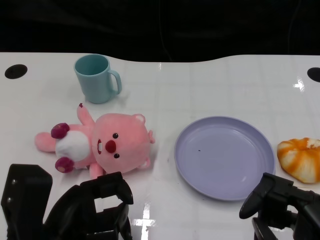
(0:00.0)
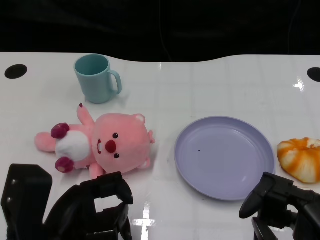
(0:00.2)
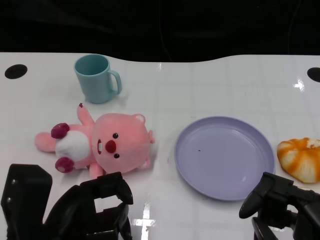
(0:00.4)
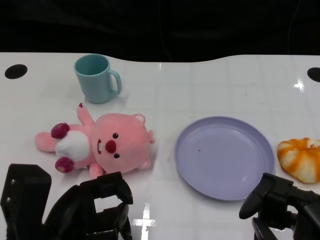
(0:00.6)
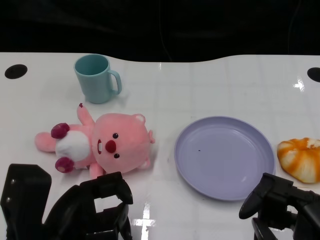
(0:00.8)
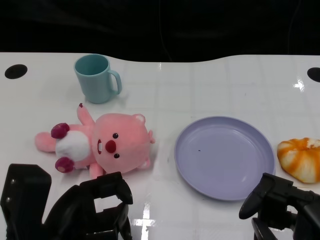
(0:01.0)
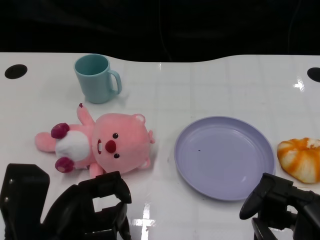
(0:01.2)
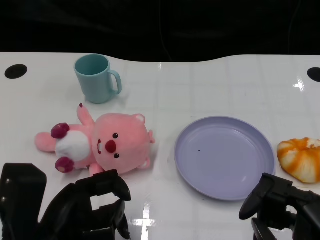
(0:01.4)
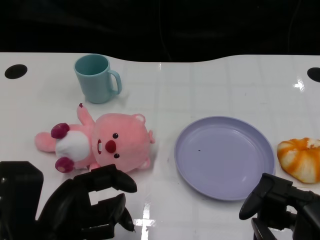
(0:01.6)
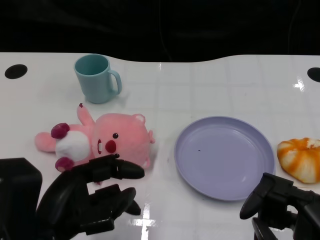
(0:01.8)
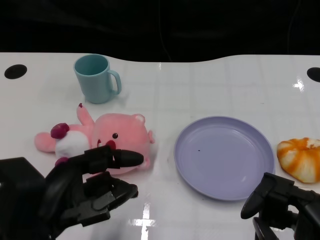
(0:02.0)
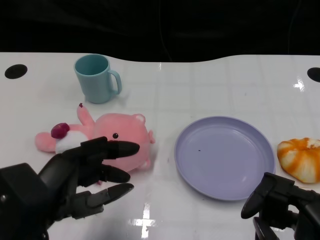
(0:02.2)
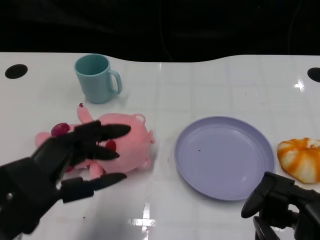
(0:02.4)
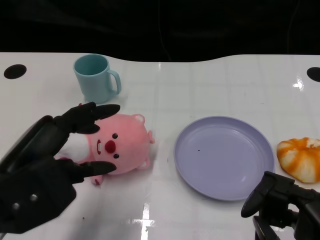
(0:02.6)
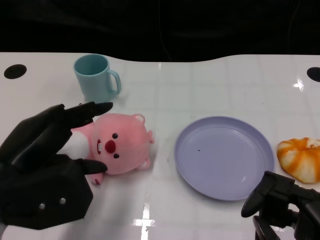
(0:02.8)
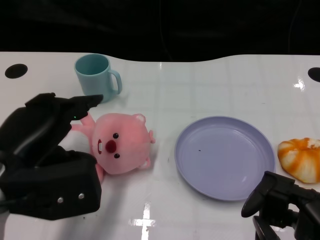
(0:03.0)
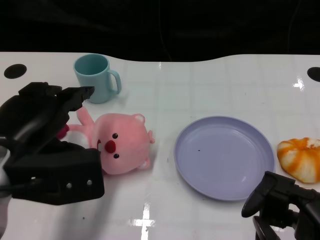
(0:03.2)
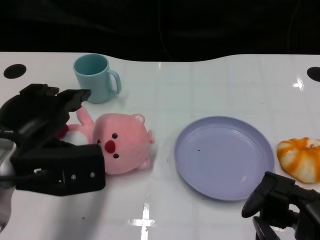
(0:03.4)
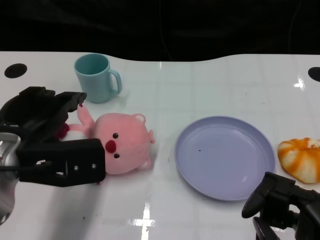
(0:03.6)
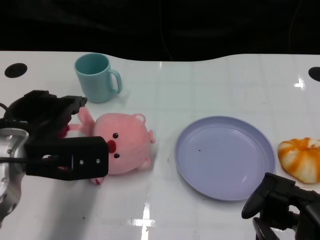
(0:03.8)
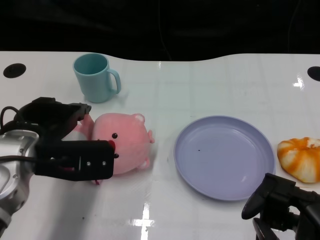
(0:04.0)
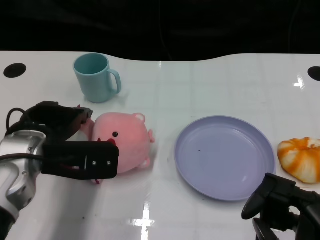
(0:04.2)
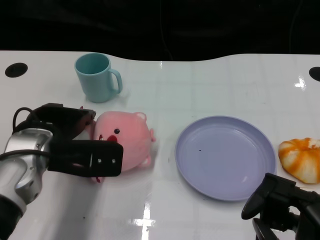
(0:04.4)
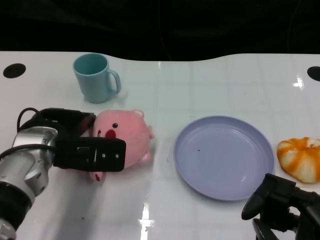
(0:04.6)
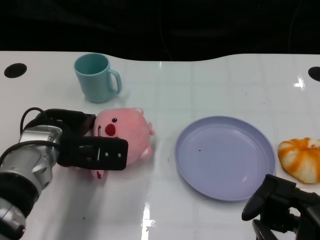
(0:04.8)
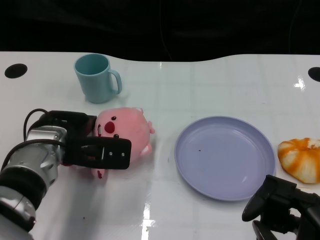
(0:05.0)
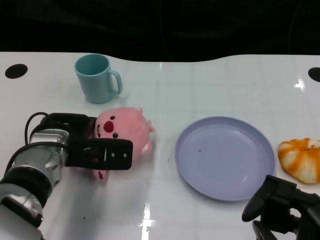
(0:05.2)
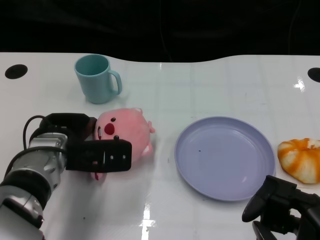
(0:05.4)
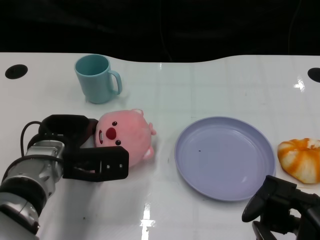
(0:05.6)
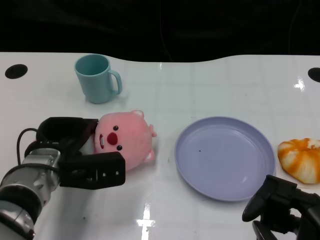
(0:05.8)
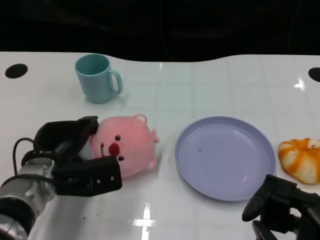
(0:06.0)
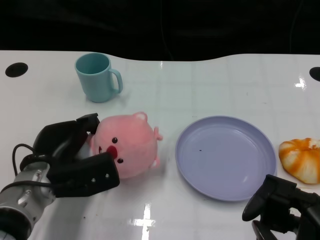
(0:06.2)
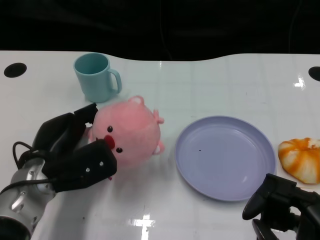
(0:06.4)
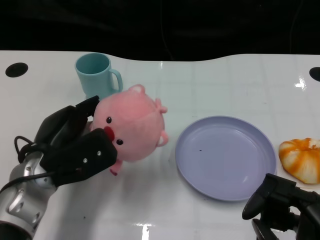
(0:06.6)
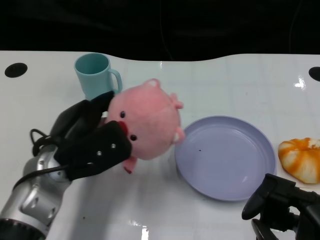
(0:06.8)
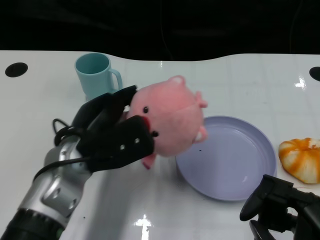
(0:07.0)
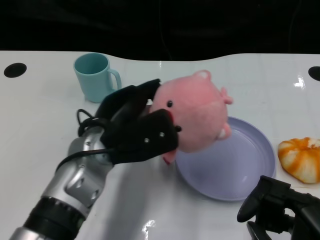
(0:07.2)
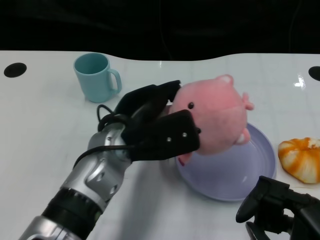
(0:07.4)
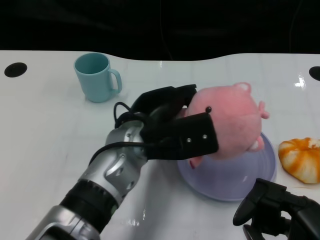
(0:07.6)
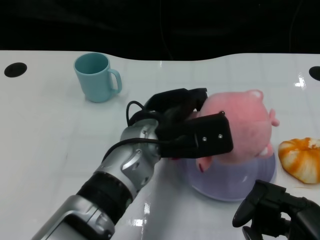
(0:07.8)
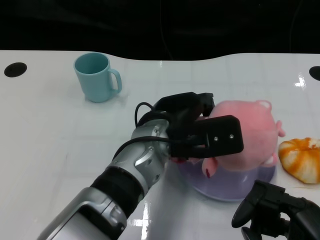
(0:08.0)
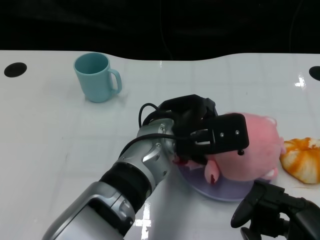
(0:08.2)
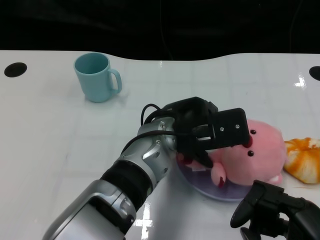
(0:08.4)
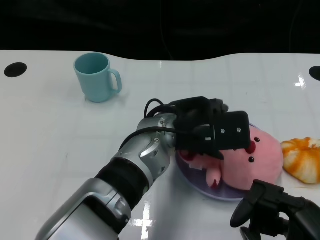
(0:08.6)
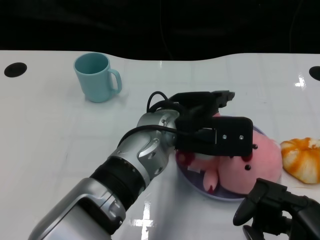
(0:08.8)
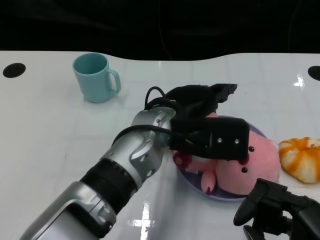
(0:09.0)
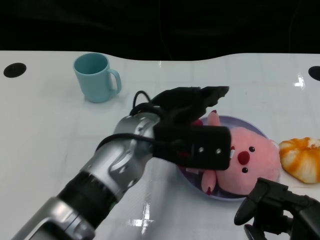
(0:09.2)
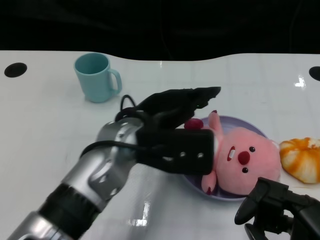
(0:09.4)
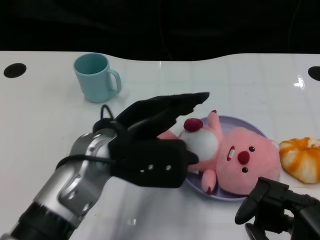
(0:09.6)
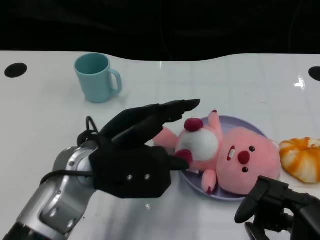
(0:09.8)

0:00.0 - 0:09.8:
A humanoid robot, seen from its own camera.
Task of the whole recording: Pick up the doll on one side of the plate and place it into the plate.
Step, 0:01.2 - 0:06.2: Grasp the pink doll with the left gripper.
Step, 0:06.4 - 0:09.2: Place the pink doll into the plate with the left gripper.
0:01.4 - 0:02.8: The left hand moves upward, roughly 5 cm.
0:02.8 - 0:04.2: The left hand moves forward, roughly 10 cm.
0:04.2 - 0:05.6: The left hand travels downward by about 5 cm.
0:05.6 - 0:07.0: The left hand travels upward by some 5 cm.
0:07.0 - 0:08.4: The left hand moves to the right, roughly 15 cm.
0:08.4 - 0:09.8: The left hand travels to the left by some 10 cm.

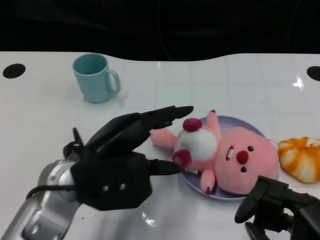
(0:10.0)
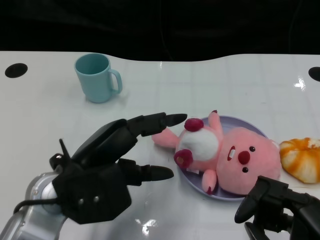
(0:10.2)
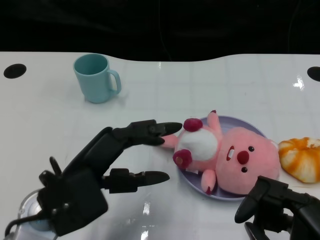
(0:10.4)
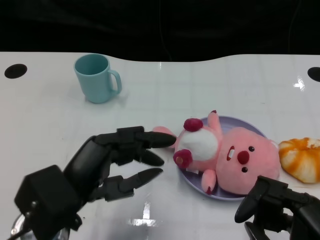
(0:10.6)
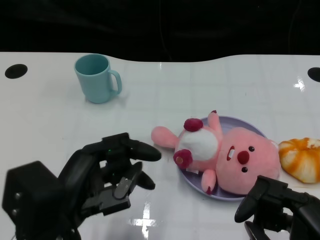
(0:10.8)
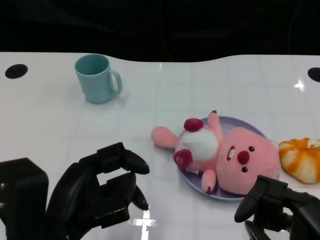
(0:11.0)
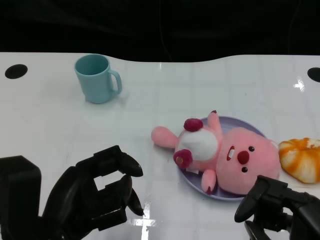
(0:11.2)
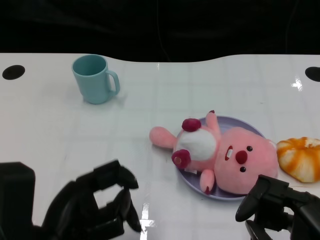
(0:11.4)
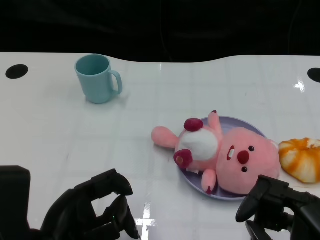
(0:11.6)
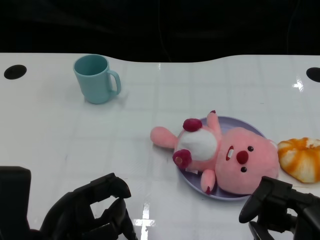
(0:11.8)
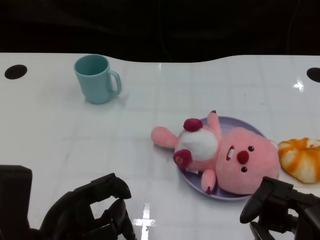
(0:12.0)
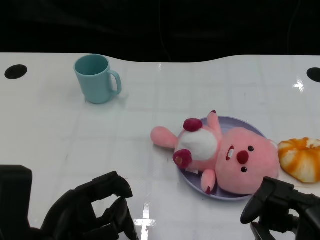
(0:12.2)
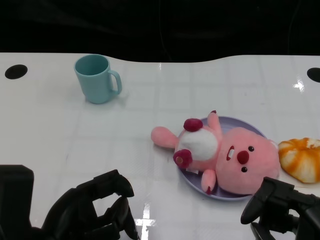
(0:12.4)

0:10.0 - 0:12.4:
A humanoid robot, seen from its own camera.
Task of the whole recording: Pick up the doll on one side of the plate and place it into the plate.
0:10.0 - 0:11.2: The left hand moves backward, roughly 10 cm.
0:11.2 - 0:12.4: The hands stay close to where they were, moving slightly.

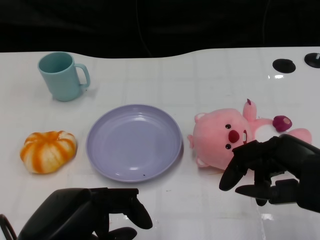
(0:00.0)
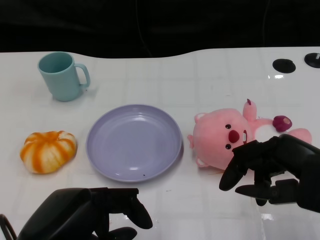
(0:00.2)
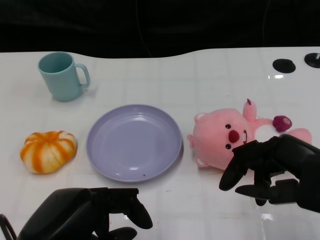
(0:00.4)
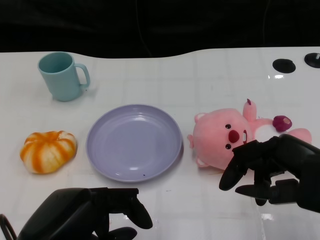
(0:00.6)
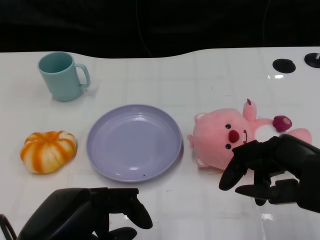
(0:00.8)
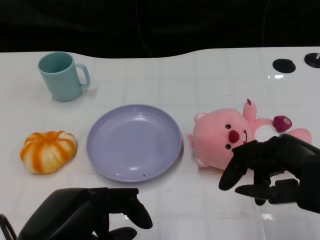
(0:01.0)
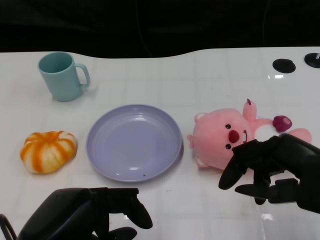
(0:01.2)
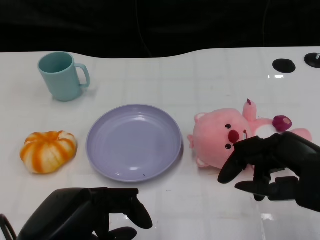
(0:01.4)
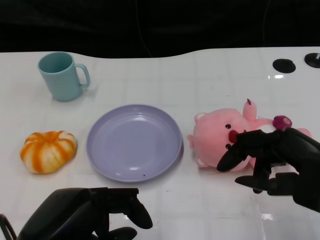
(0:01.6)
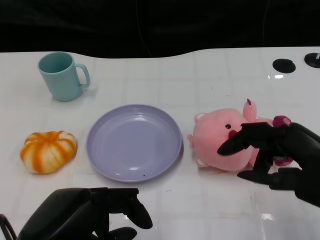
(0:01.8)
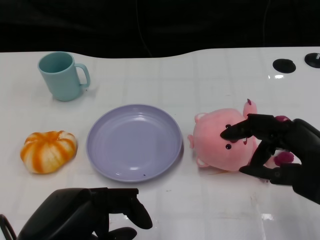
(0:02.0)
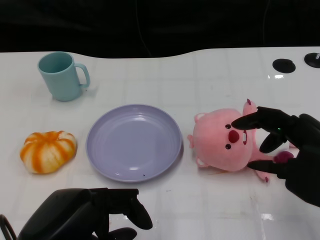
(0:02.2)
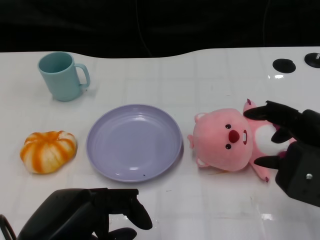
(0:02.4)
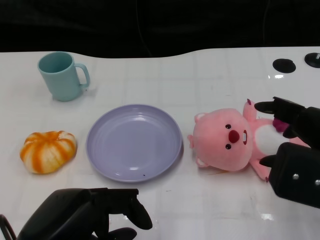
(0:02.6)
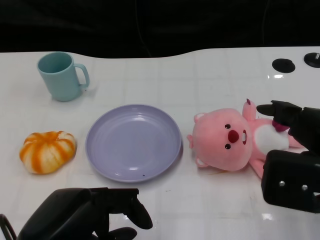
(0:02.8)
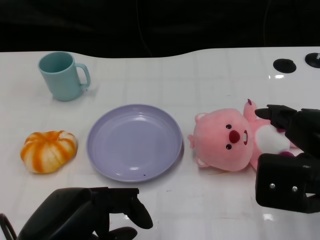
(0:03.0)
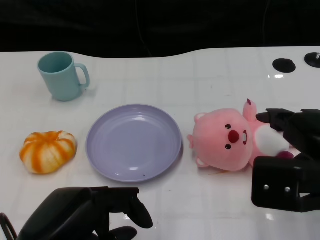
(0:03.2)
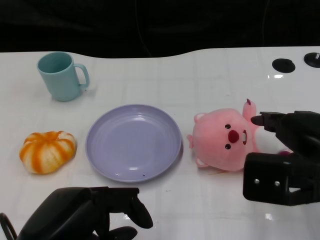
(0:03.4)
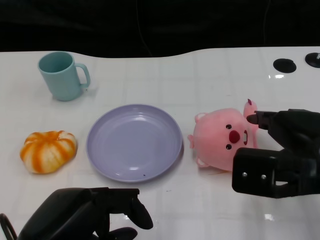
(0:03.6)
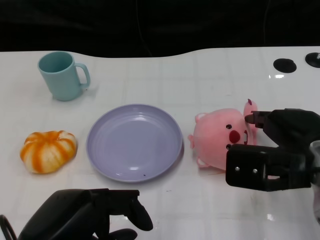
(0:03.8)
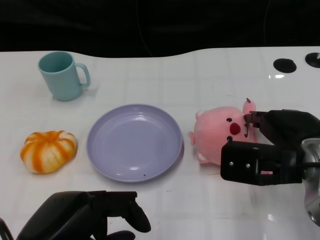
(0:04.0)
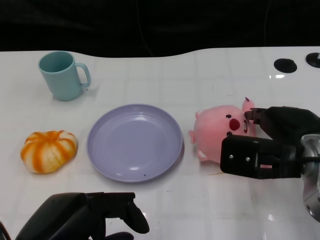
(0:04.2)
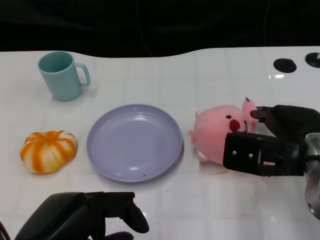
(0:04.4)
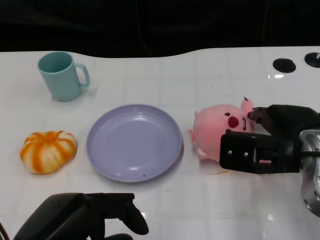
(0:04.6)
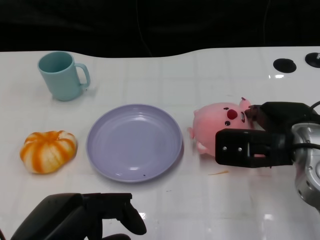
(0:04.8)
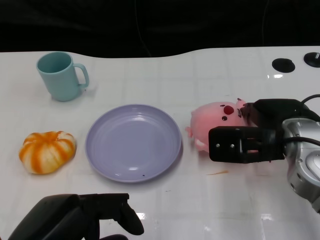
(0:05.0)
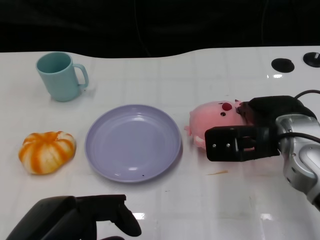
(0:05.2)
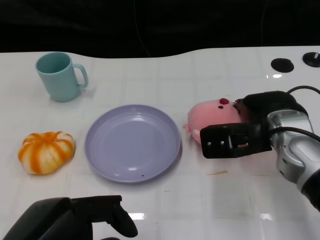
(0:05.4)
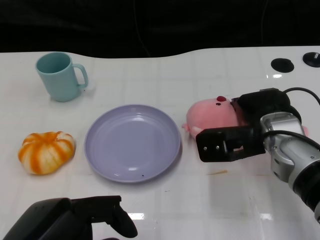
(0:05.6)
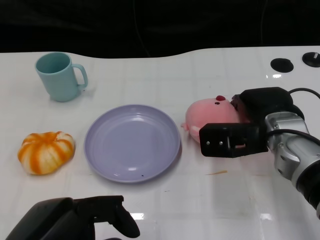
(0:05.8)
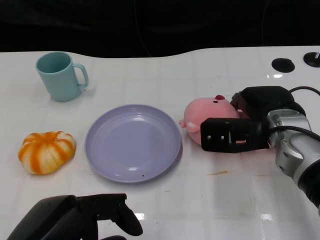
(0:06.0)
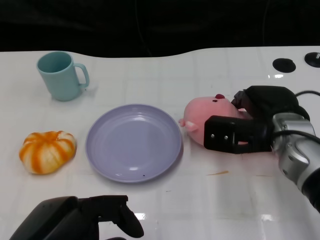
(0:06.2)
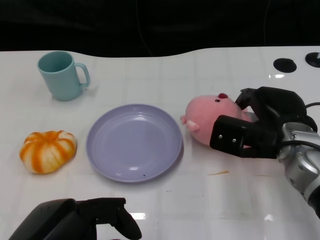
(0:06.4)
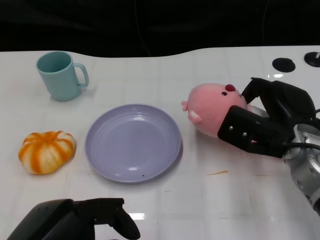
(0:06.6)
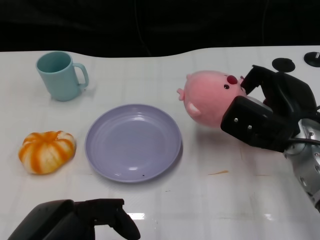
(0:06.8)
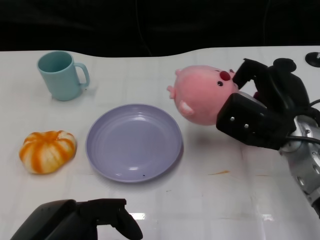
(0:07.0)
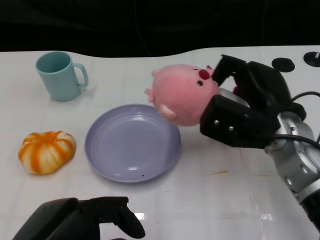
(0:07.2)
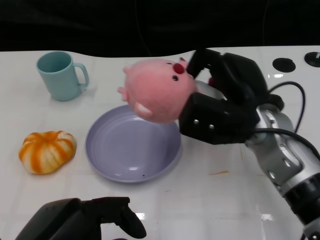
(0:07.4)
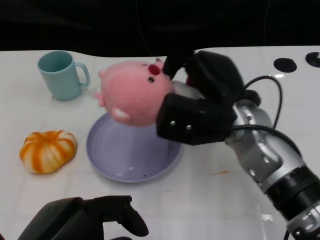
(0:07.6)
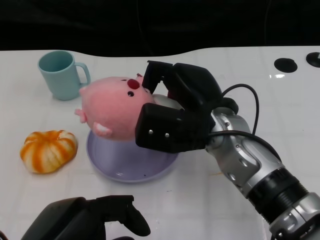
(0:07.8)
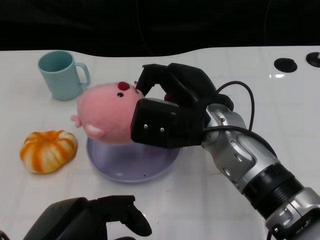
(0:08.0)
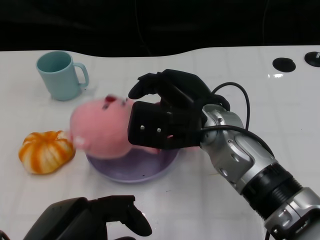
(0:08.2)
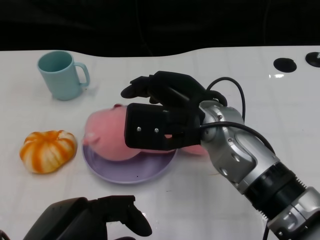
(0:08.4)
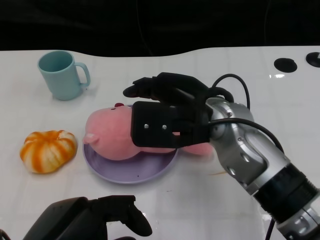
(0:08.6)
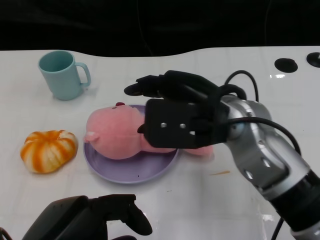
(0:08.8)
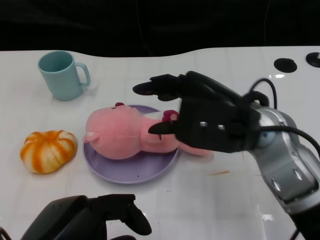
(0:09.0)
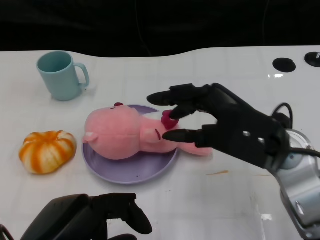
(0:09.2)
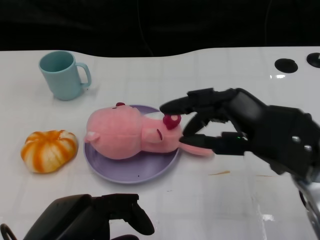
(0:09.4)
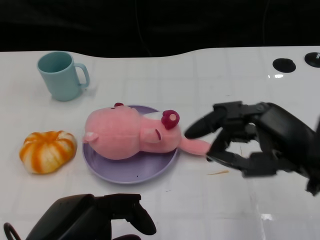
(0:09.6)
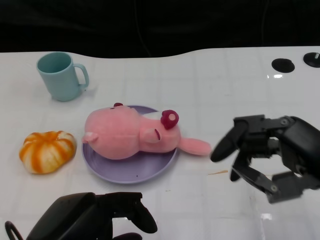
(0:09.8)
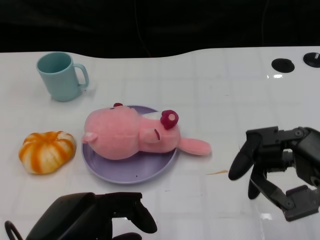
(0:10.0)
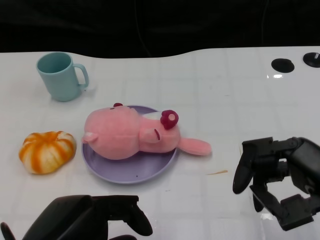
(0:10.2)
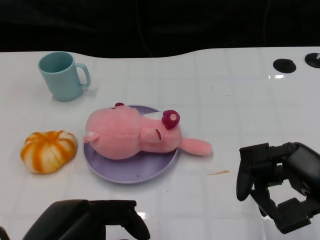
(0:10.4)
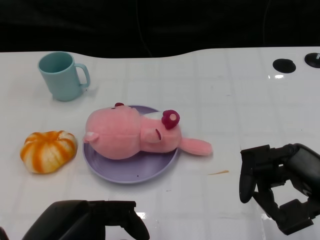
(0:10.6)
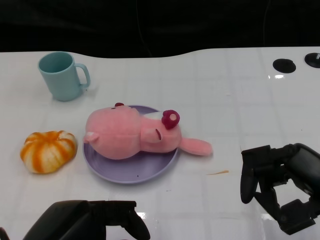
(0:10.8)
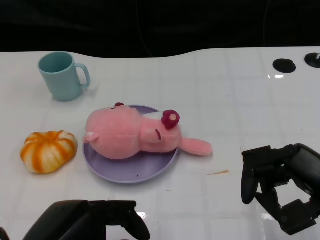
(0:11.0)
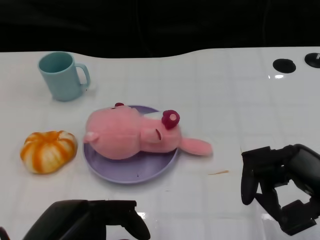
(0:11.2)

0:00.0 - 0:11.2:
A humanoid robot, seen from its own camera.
Task of the whole recording: Pick up the doll on the other side of the plate and place it into the plate.
Step, 0:01.2 - 0:07.2: Grasp the pink doll with the right gripper.
Step, 0:07.4 - 0:08.8: Place the pink doll into the plate with the right gripper.
0:03.2 - 0:04.8: The right hand goes approximately 5 cm forward.
0:04.8 - 0:06.4: The right hand changes place by roughly 5 cm.
0:06.4 - 0:08.0: The right hand heads to the left and upward, covering some 15 cm.
0:08.0 - 0:09.6: The right hand is displaced to the right and backward by approximately 15 cm.
0:09.6 - 0:11.2: The right hand changes place by some 5 cm.
